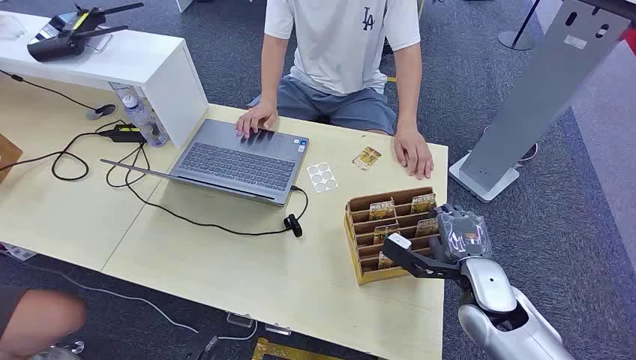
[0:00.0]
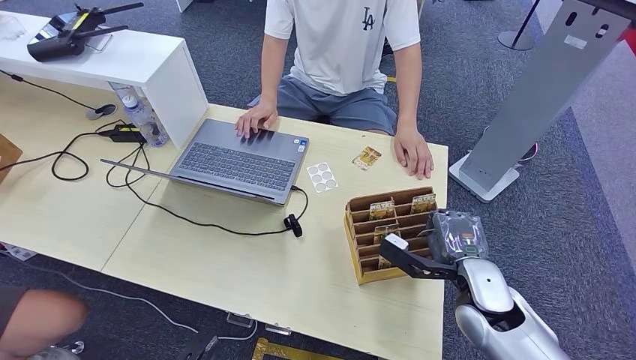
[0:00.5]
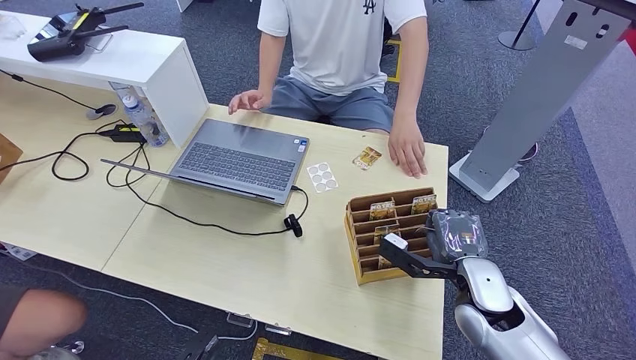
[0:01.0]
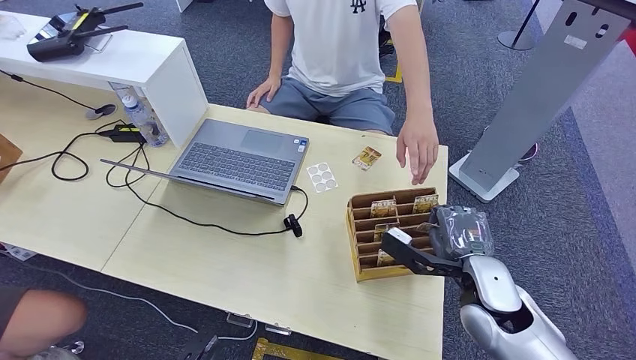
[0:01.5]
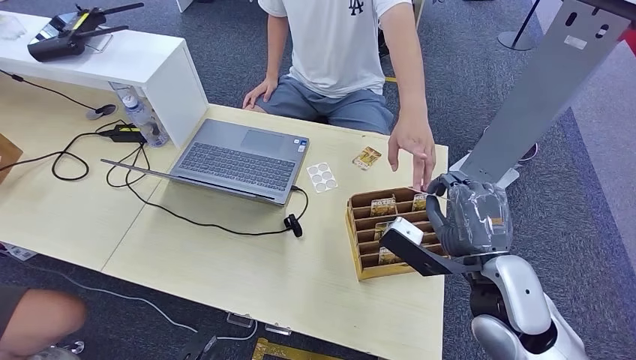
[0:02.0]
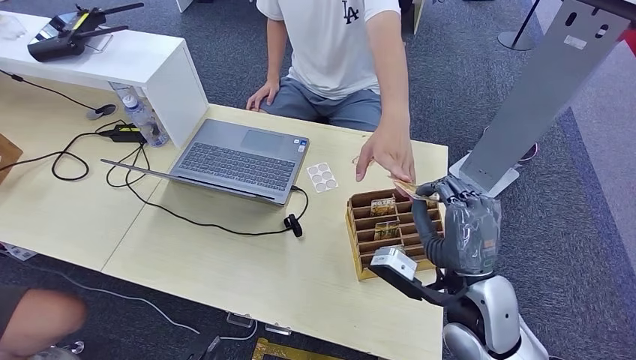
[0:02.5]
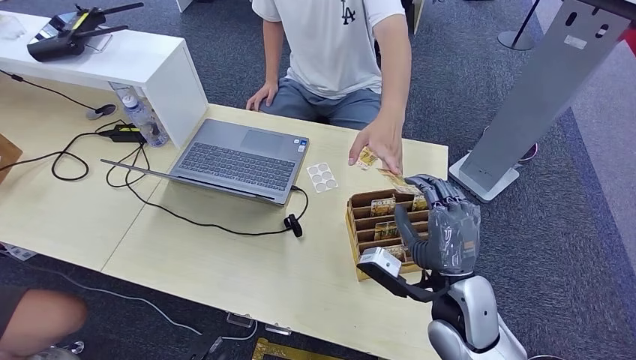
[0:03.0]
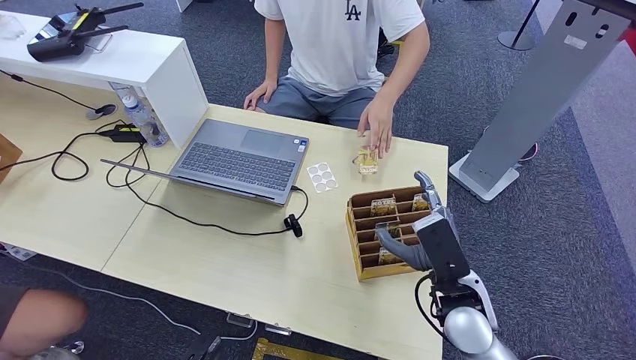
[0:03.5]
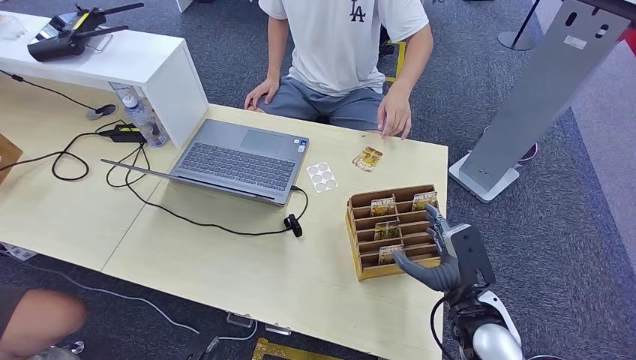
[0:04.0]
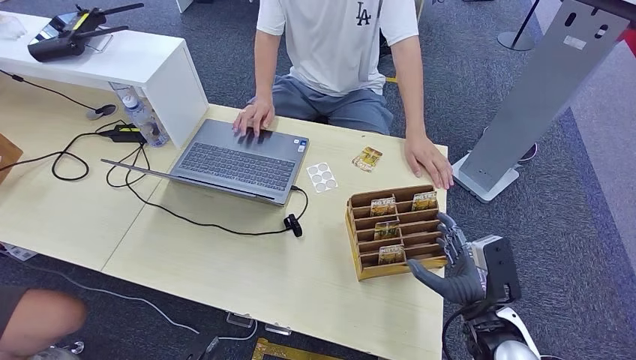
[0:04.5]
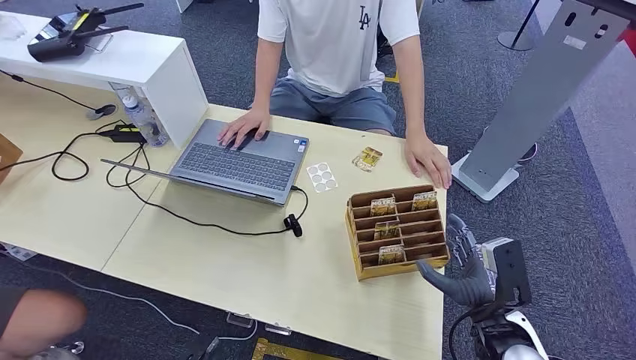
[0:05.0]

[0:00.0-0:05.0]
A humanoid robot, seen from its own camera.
Step, 0:00.0 to 0:02.0: Pick up the room card from the card holder.
Step, 0:02.5 to 0:04.5: Hand the room card to the target.
0:02.5 to 0:05.0: The right hand goes roughly 10 cm downward and to the right.
